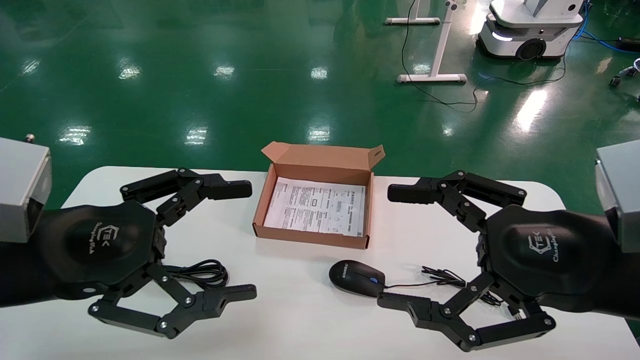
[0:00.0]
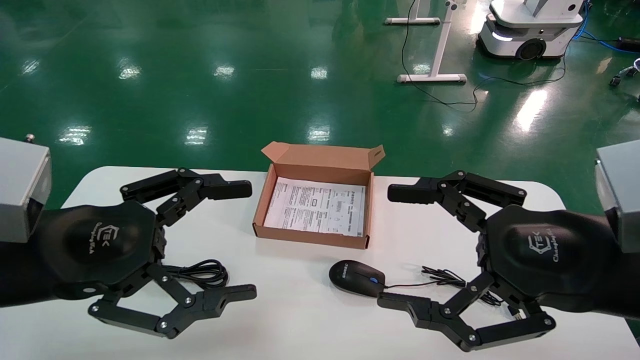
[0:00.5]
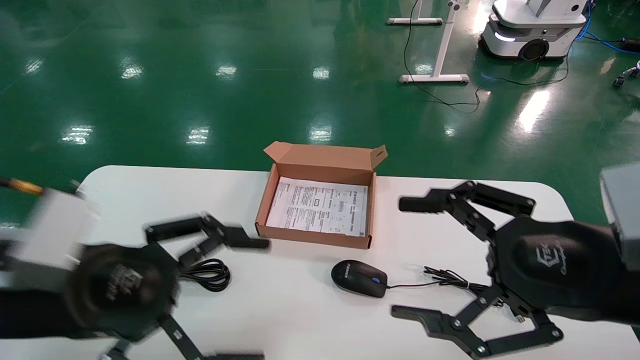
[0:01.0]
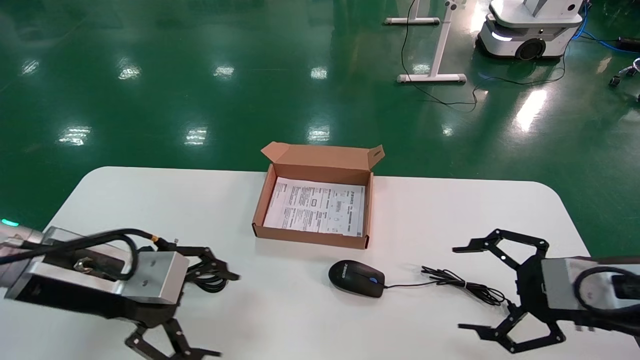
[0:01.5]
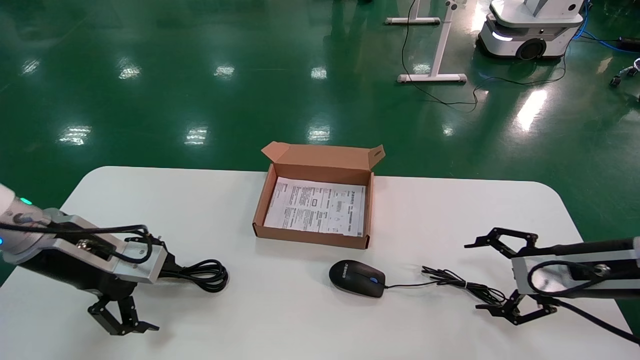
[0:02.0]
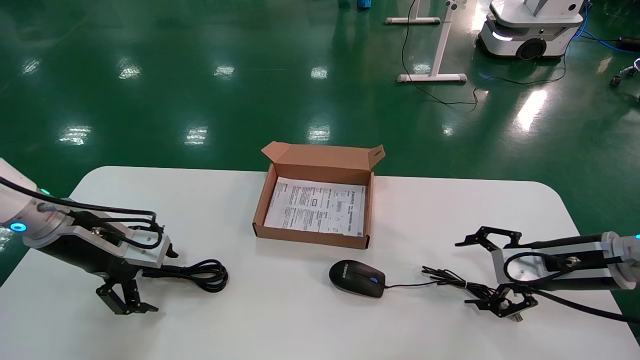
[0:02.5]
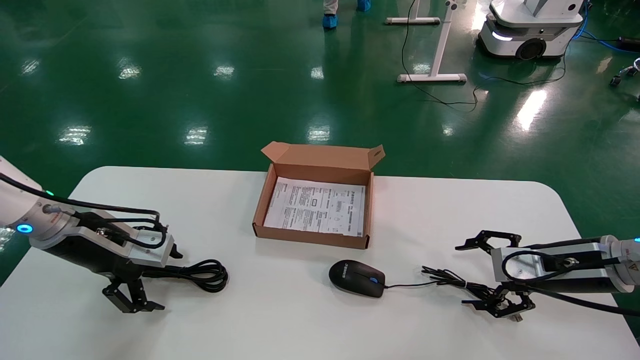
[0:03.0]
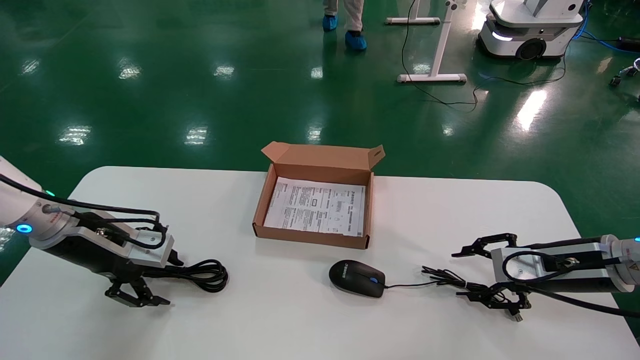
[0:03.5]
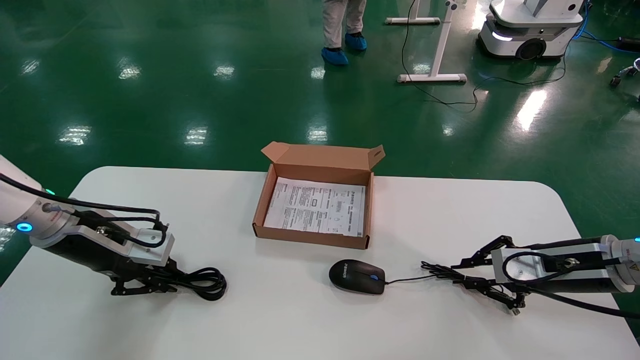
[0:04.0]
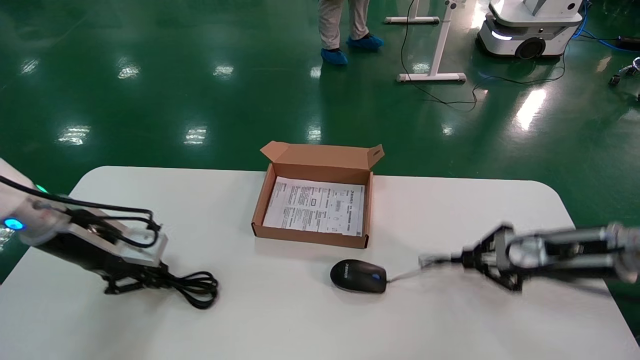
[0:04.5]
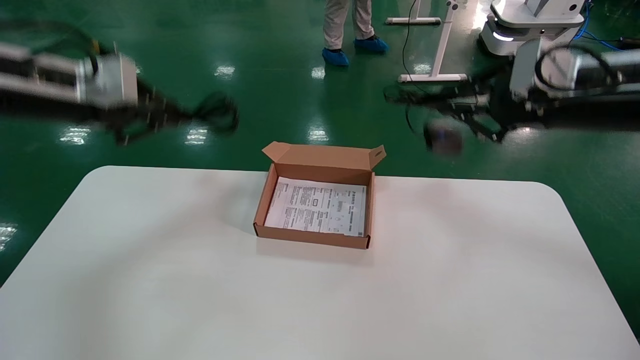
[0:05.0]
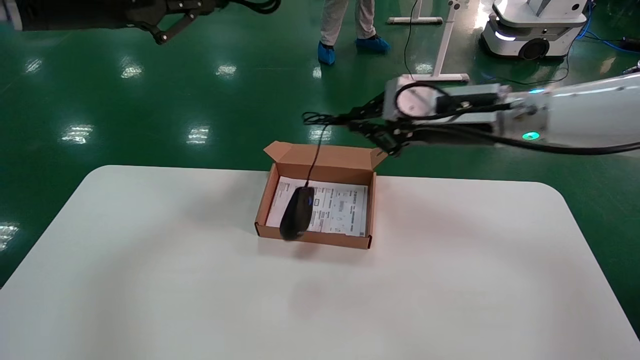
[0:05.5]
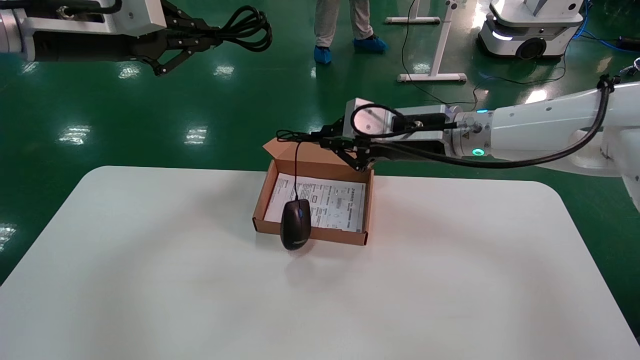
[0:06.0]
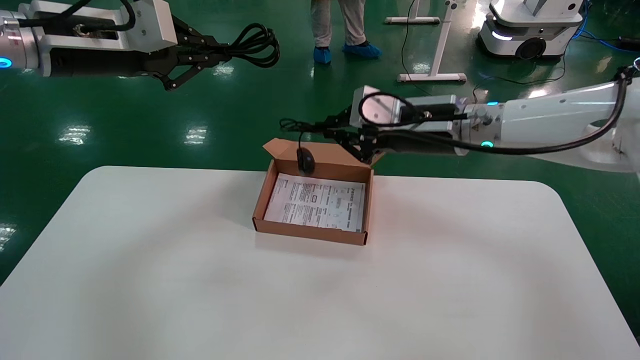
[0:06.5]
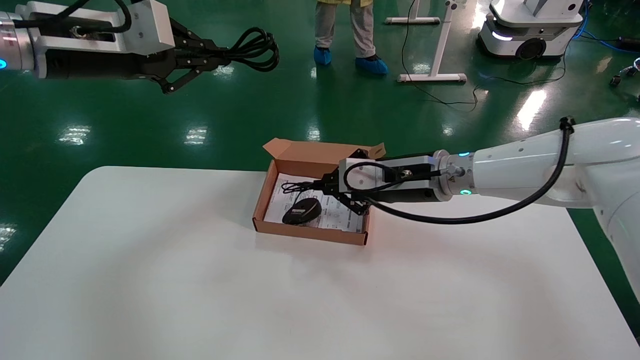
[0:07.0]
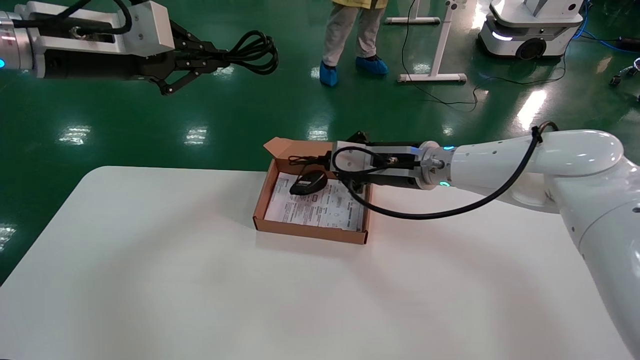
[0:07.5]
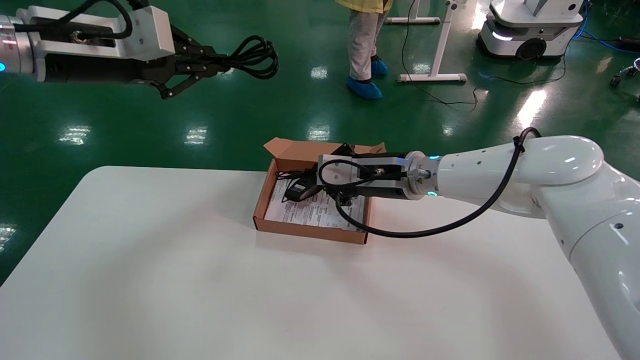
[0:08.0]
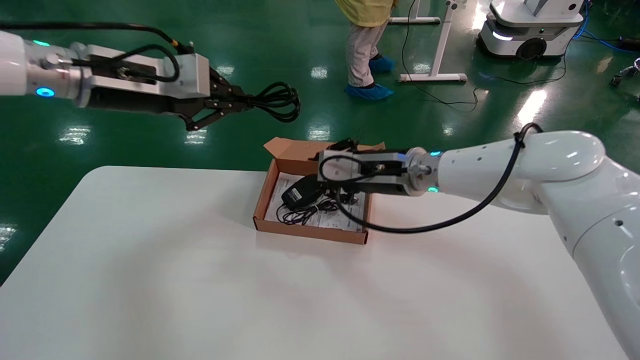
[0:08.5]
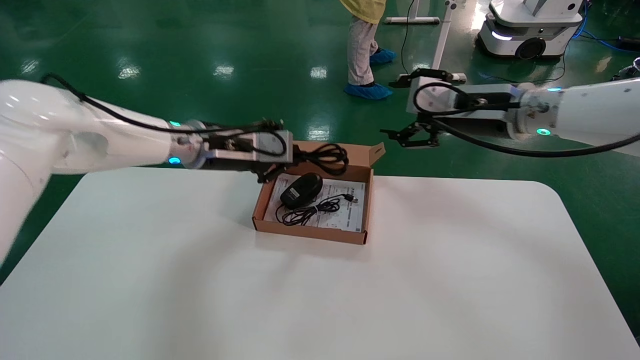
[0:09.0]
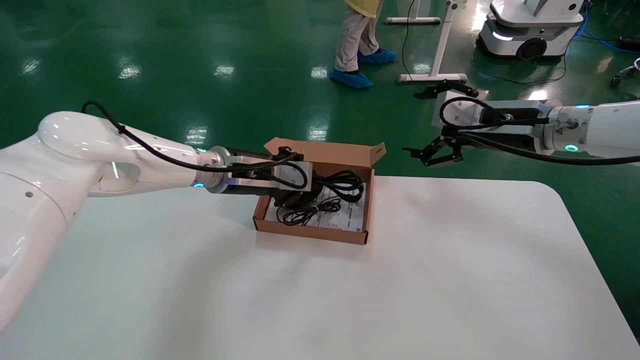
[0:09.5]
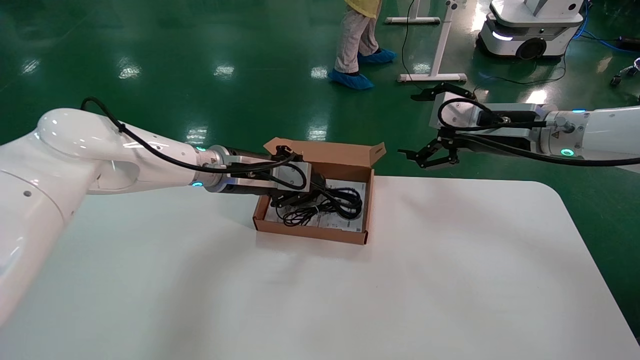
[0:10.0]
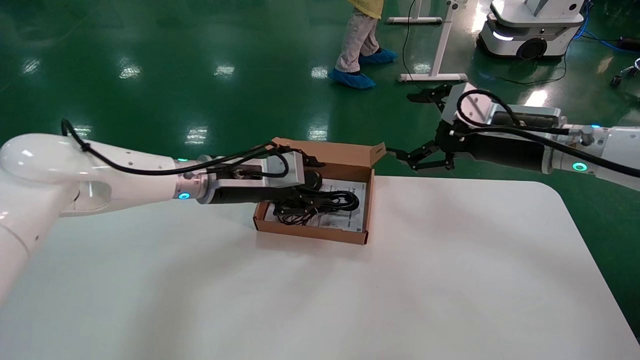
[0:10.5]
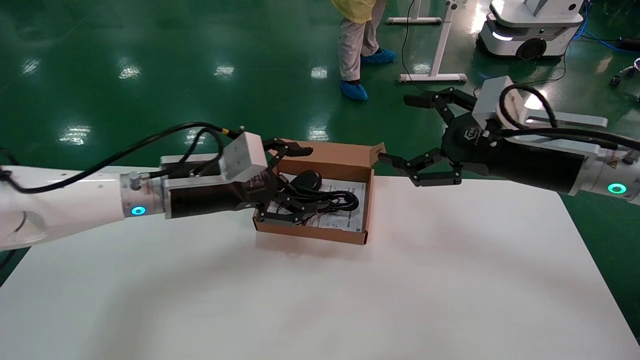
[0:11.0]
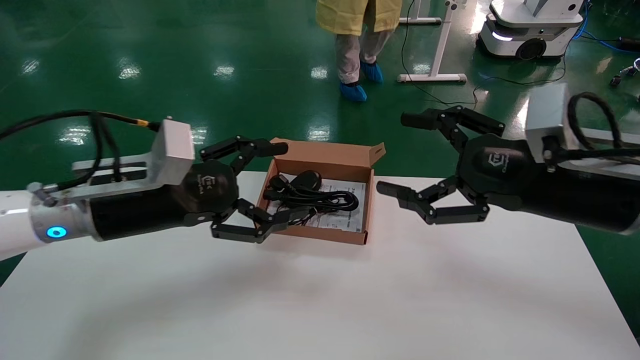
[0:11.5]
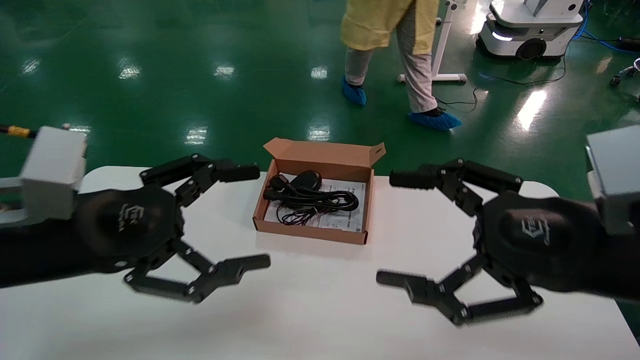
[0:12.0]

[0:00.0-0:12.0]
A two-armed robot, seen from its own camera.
Step, 0:01.0 to 0:04.5: Grab and lift both the mouse and power cord from the accessory packaging area at the same time.
Step, 0:05.0 to 0:10.5: Place the mouse and power cord into the box.
0:00.0 to 0:02.0: The left gripper travels forward, to the left and downward by approximately 15 cm; the right gripper heads forward, to the right and downward, covering roughly 20 cm.
0:02.0 to 0:04.0: The right gripper closes, while the left gripper closes.
0:04.0 to 0:06.0: The right gripper travels to the left and upward by some 25 cm. The left gripper travels upward by some 25 cm.
0:06.0 to 0:08.0: The right gripper travels downward by about 10 cm.
0:08.0 to 0:10.0: The left gripper moves downward, to the right and forward, some 25 cm, while the right gripper heads to the right and upward, covering about 15 cm, and opens up.
0:10.0 to 0:12.0: The right gripper moves backward, approximately 20 cm. The left gripper moves backward and to the left, roughly 25 cm, and opens its fingers.

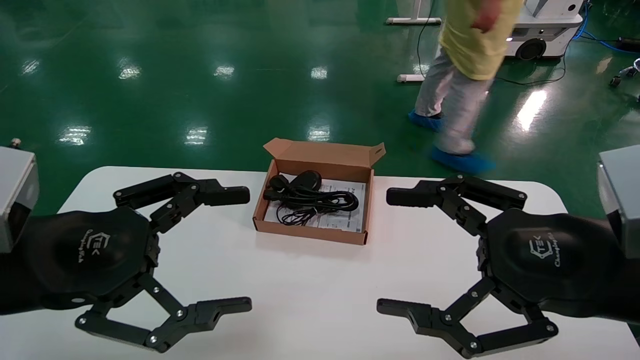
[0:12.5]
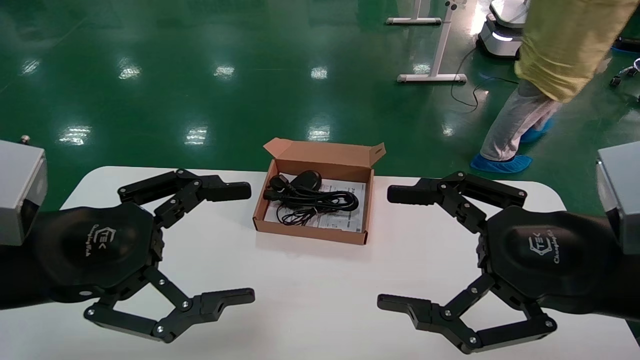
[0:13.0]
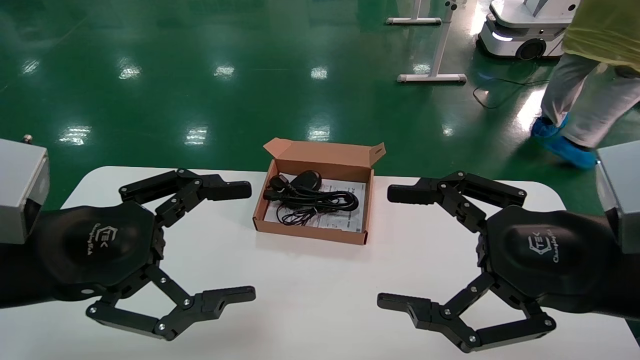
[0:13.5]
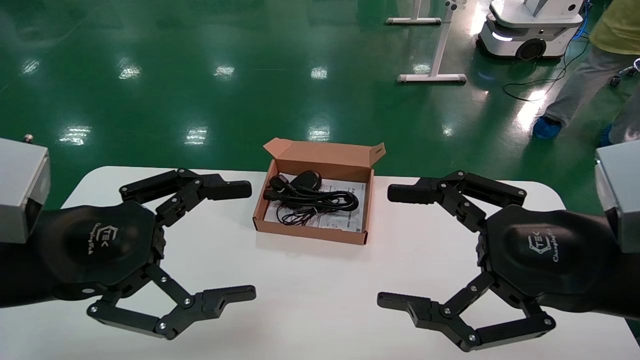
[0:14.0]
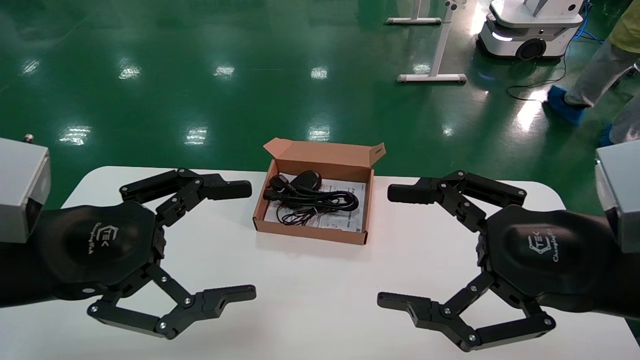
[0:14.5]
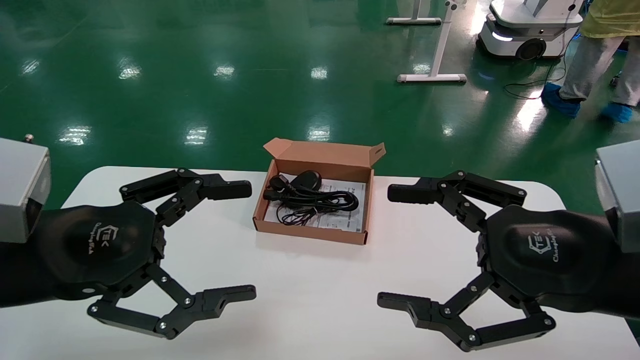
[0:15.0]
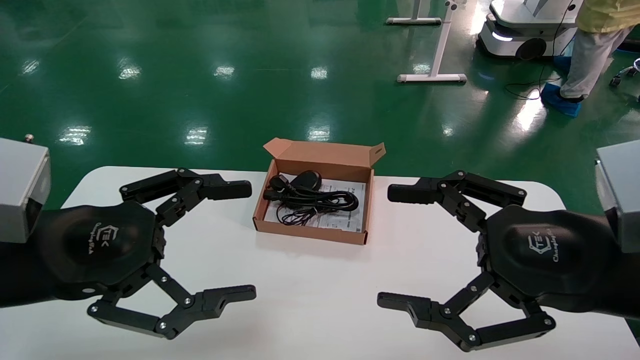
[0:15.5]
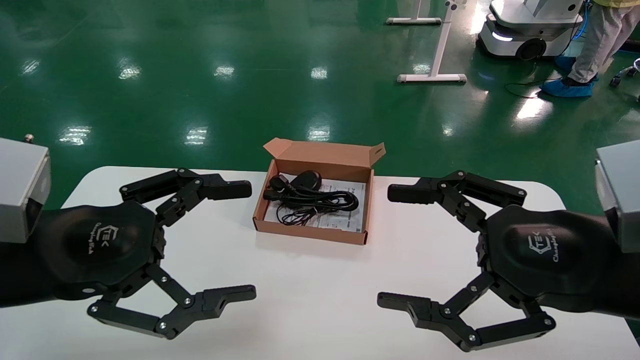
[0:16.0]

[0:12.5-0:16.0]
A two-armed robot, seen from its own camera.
0:12.5 to 0:16.0: Both grippers stay put.

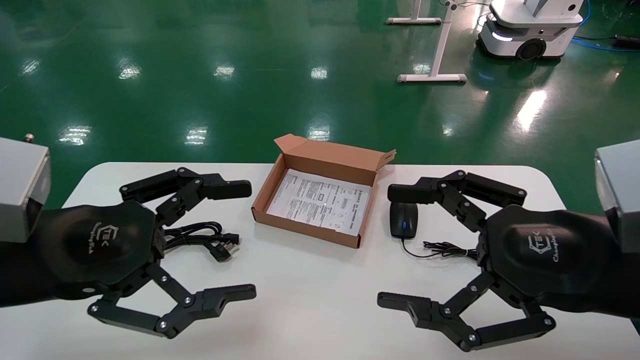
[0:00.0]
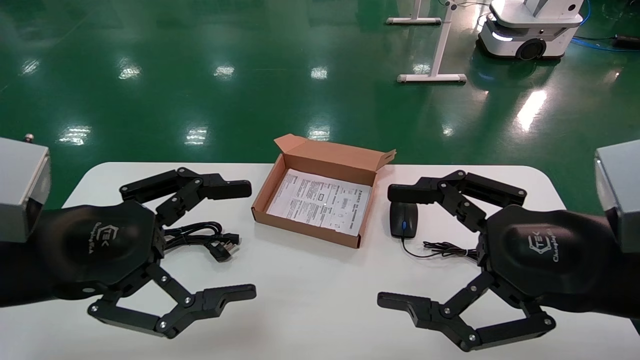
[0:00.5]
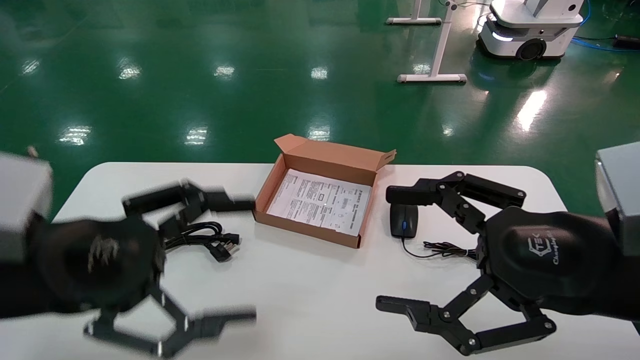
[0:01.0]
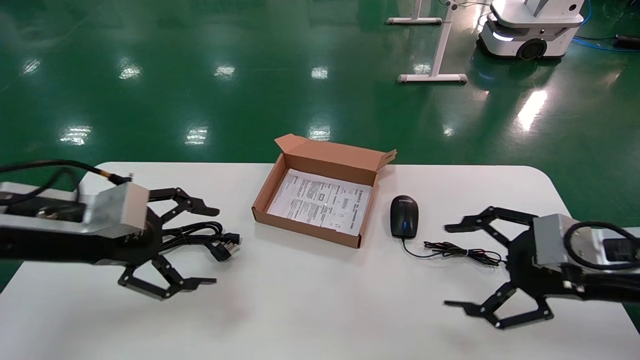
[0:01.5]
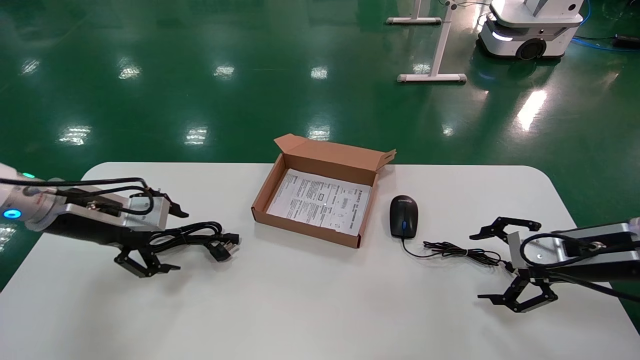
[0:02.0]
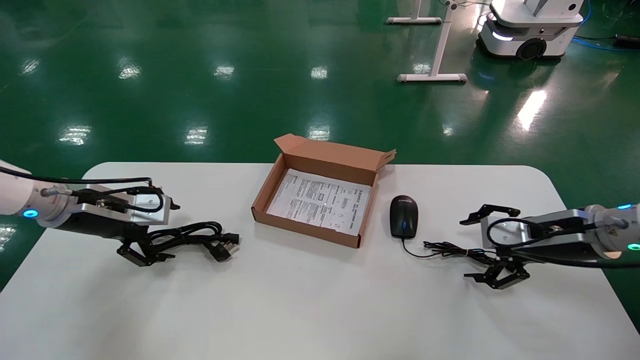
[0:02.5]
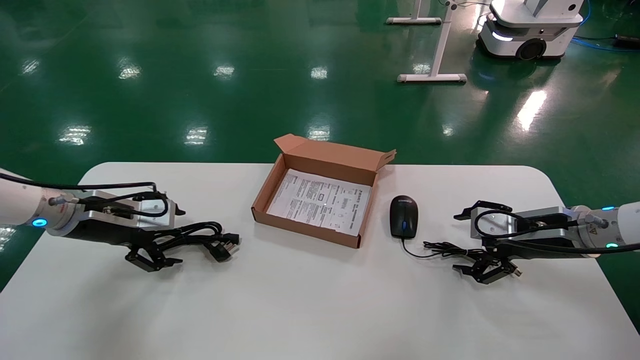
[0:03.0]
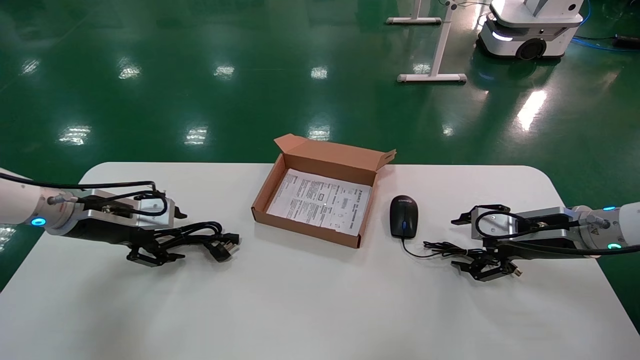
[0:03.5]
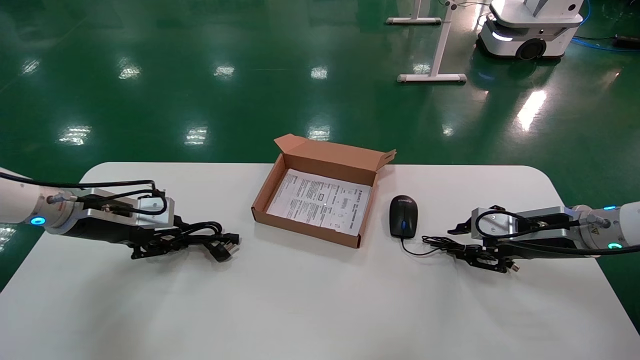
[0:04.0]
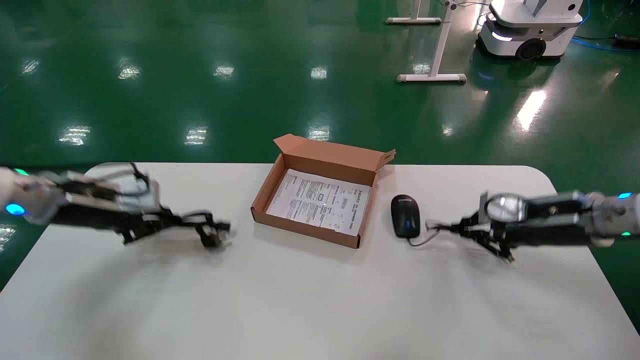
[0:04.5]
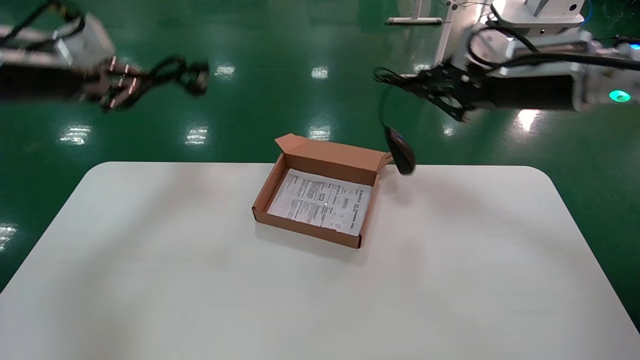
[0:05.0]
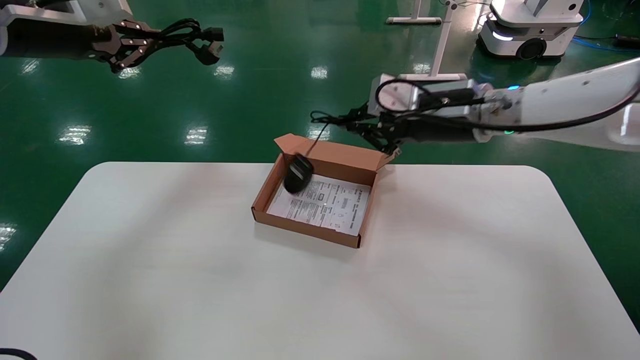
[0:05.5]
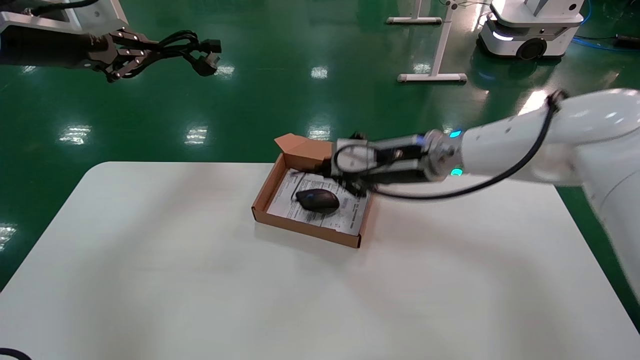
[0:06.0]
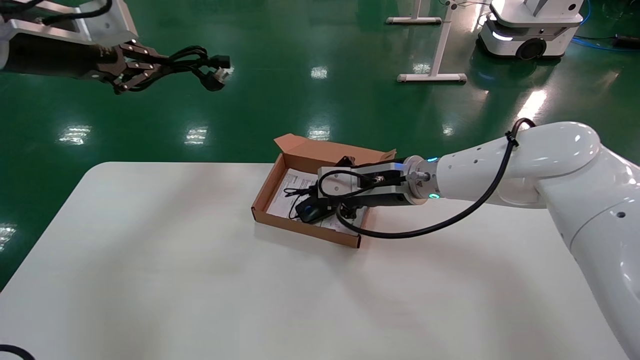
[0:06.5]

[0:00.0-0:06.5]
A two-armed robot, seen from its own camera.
Step, 0:01.5 to 0:04.0: Grab and lift both the mouse and power cord from the accessory packaging area at the same time.
0:00.0 to 0:02.0: The left gripper travels forward and to the left by approximately 20 cm. Meanwhile the right gripper heads forward, to the right and downward, covering about 20 cm.
0:02.0 to 0:04.5: The right gripper is displaced forward by about 5 cm, and closes its fingers; the left gripper closes its fingers.
0:04.5 to 0:06.5: The right gripper moves to the left, about 25 cm. Meanwhile the left gripper heads upward, covering roughly 20 cm.
